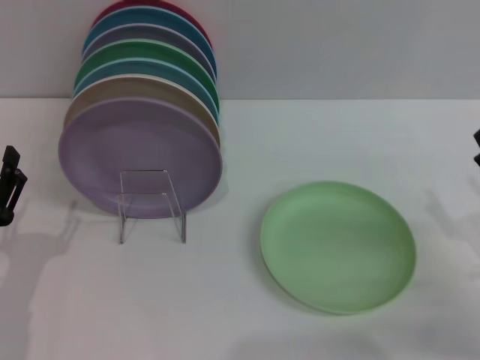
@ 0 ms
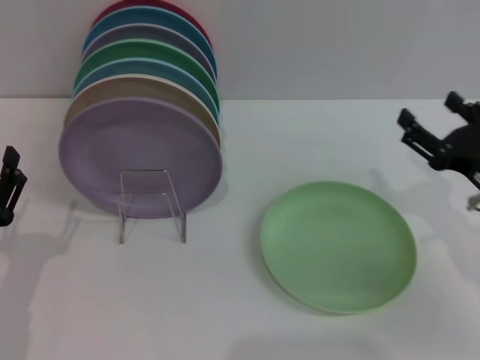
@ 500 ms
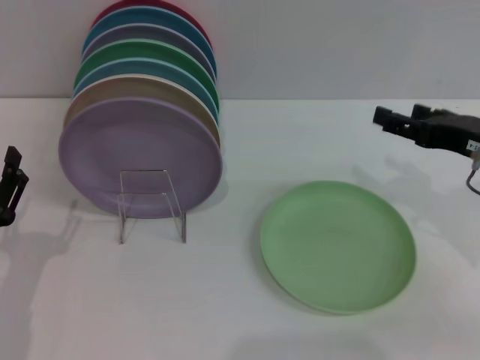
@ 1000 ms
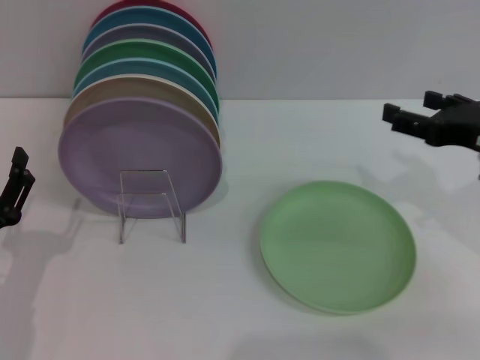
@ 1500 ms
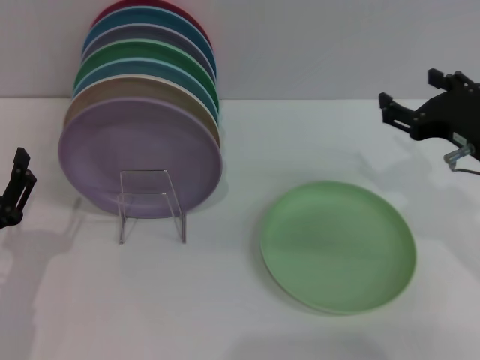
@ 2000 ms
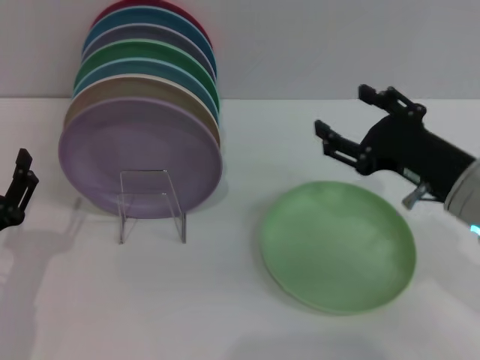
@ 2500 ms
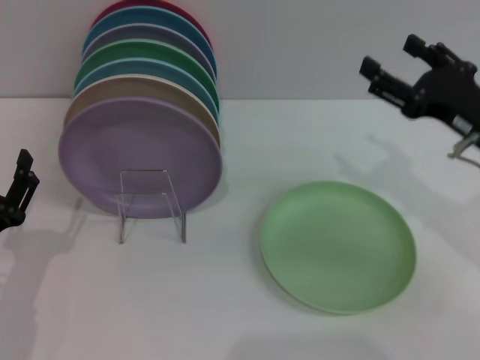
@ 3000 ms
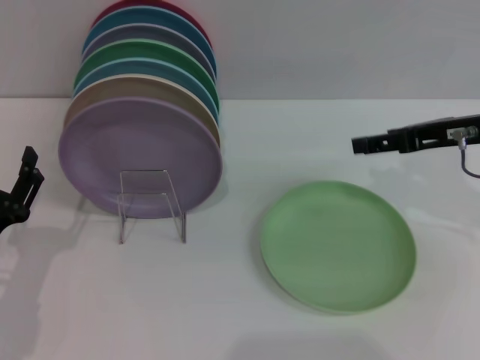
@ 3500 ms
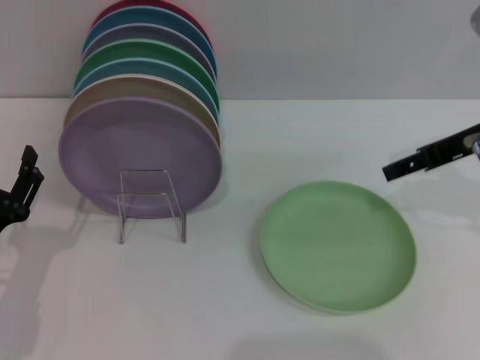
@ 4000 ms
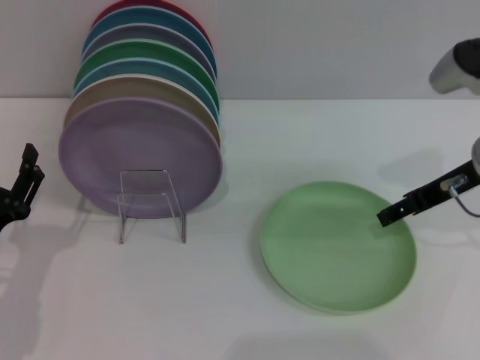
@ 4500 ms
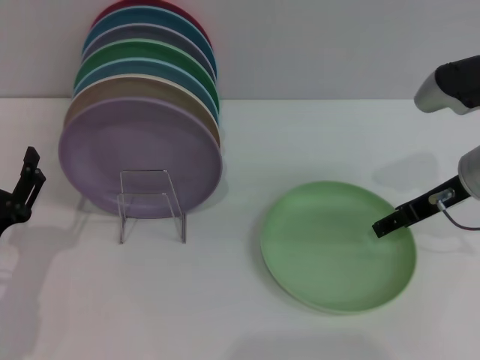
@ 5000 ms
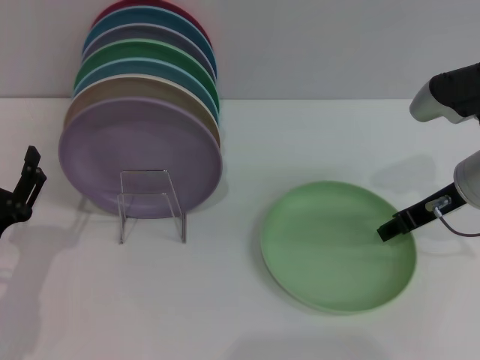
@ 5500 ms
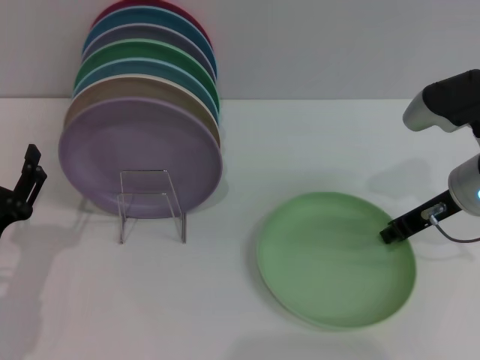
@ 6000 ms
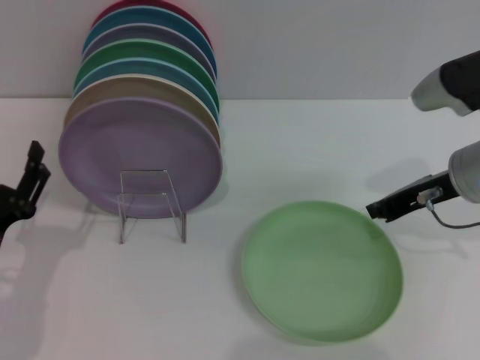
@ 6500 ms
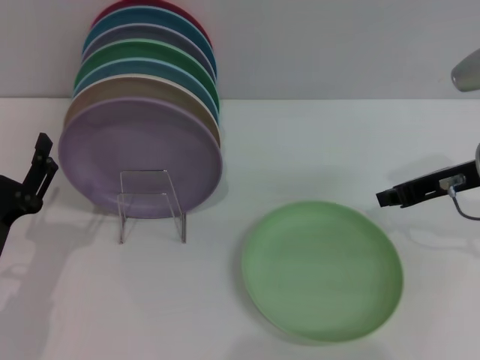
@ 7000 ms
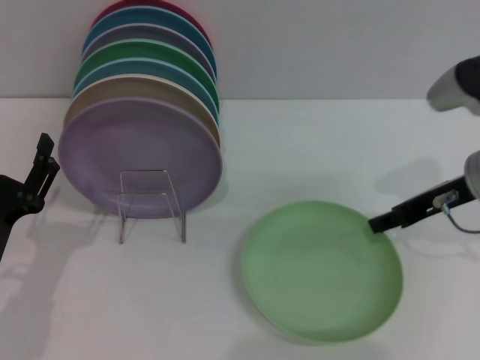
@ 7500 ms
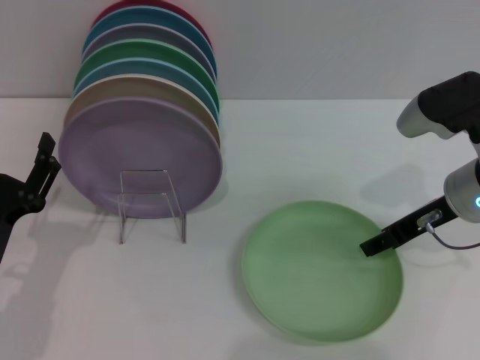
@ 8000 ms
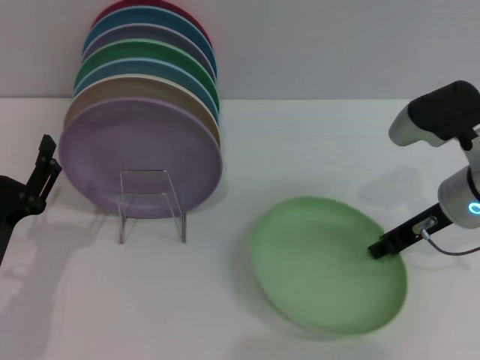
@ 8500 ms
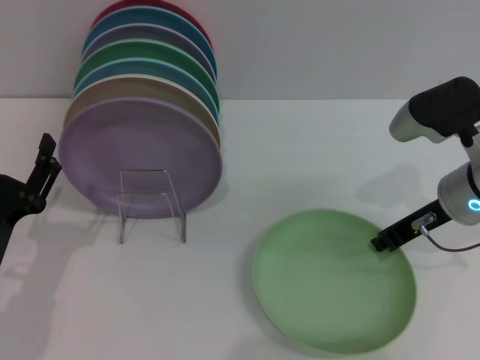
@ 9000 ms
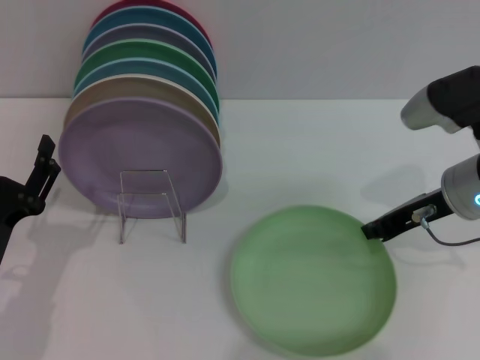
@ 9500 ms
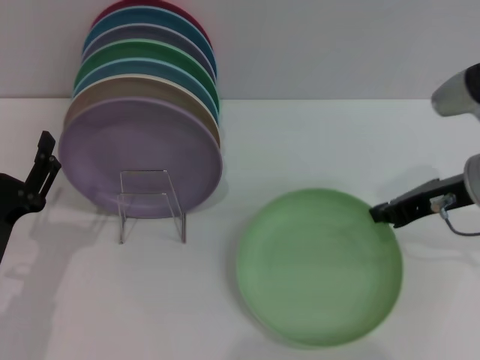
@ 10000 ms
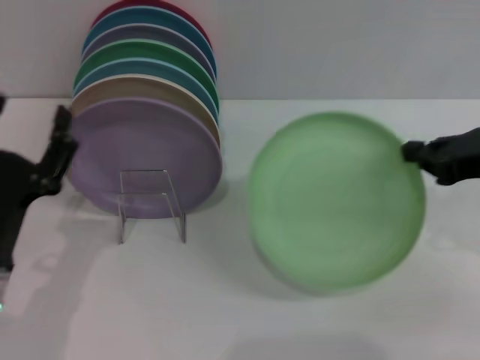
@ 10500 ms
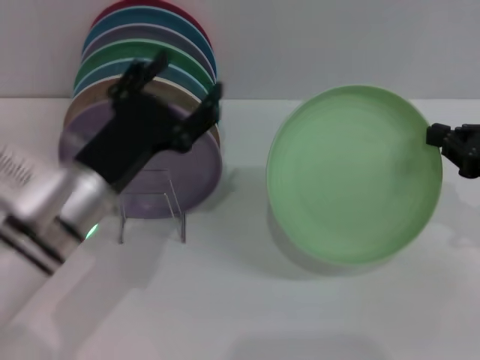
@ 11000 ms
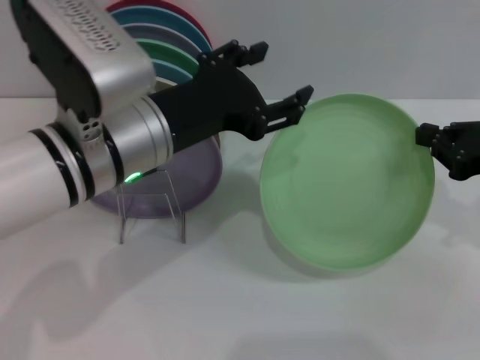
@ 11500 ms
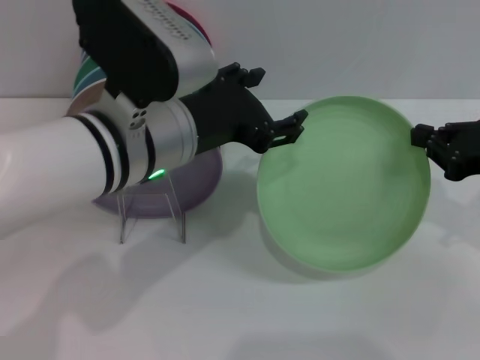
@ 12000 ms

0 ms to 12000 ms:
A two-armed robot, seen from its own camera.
Task of the whole recording: Grip the plate with one hand, pass it to the other, then set it on the shelf.
Step, 0 ms to 11000 ms: Pick up the plate with the right gripper.
0 ms to 2000 ms: The right gripper travels upward, forward and to the left by approximately 15 cm.
2000 ms to 4000 ms: The right gripper travels upward by roughly 5 cm.
4000 ms to 6000 ms: The right gripper travels downward by roughly 10 cm, and closes.
6000 ms to 8000 ms: The right gripper opens up.
8000 ms to 10000 ms: The right gripper closes its fingers.
10000 ms to 12000 ms: The right gripper shifts some 5 cm to the right. The left gripper is displaced upward, to the right and forward by approximately 25 cm.

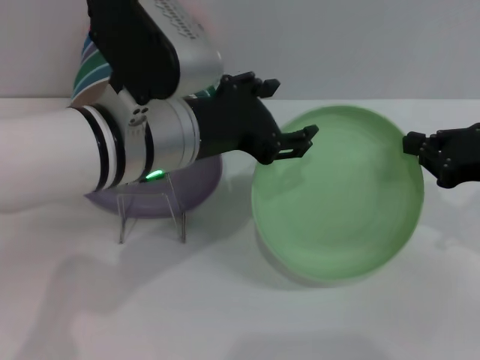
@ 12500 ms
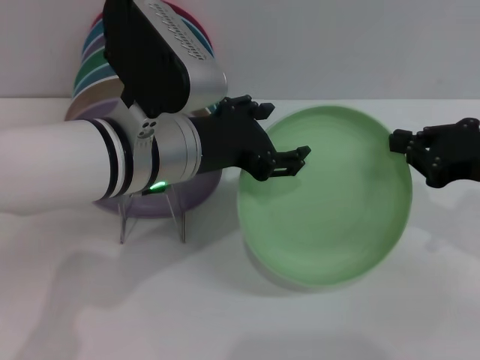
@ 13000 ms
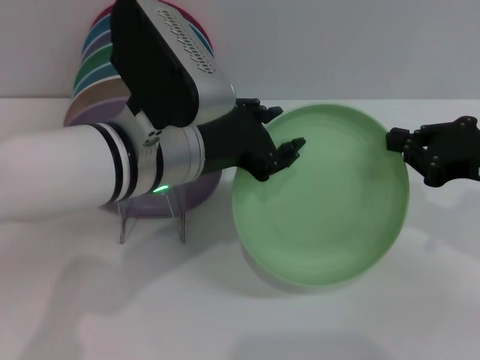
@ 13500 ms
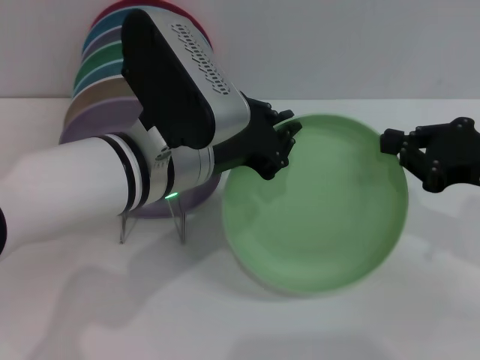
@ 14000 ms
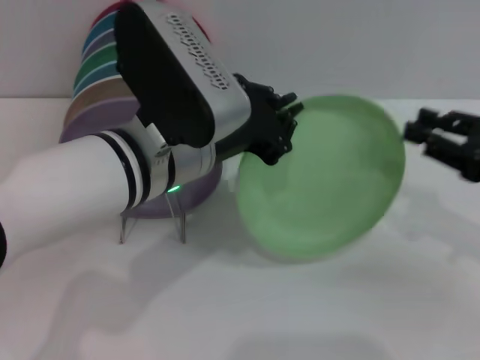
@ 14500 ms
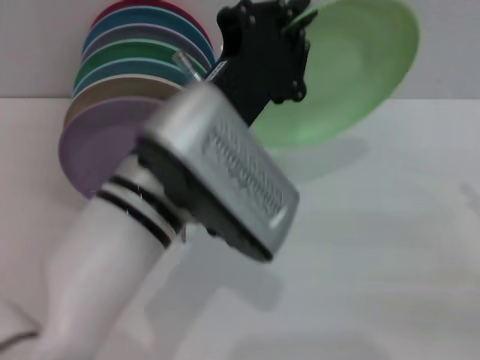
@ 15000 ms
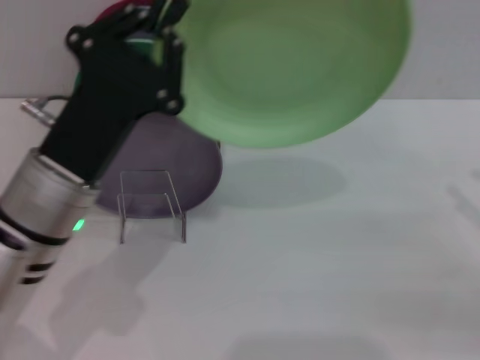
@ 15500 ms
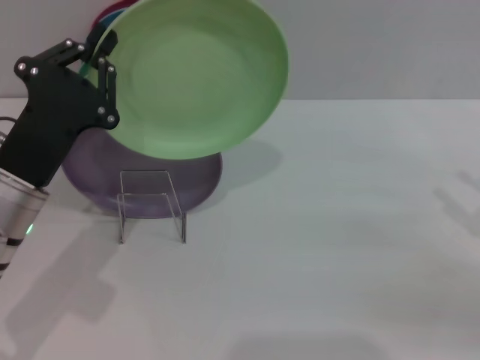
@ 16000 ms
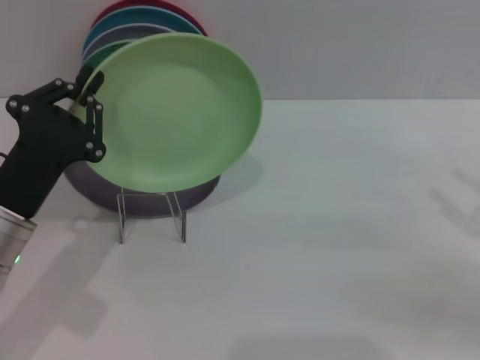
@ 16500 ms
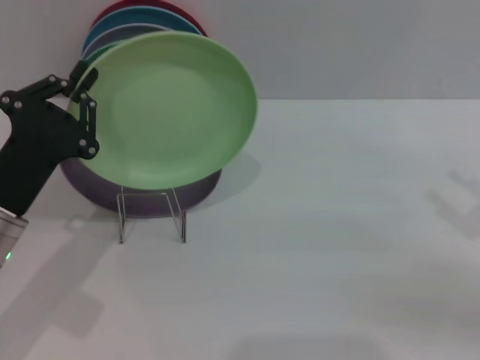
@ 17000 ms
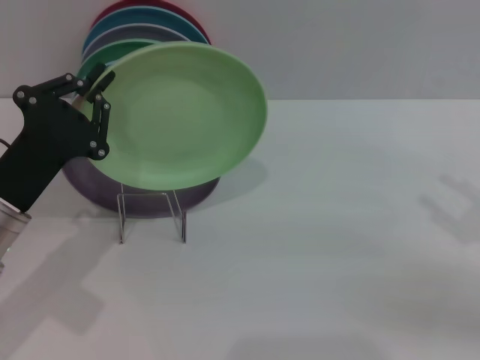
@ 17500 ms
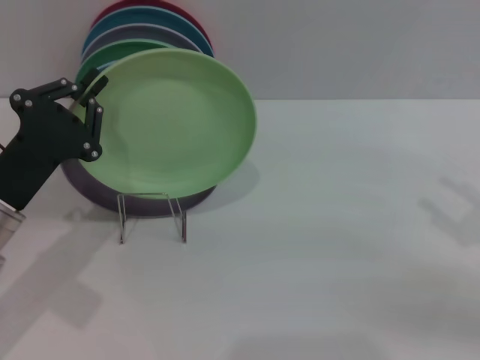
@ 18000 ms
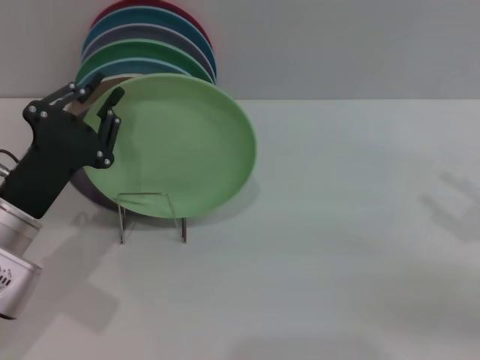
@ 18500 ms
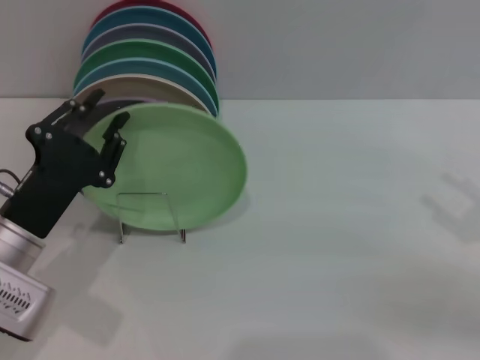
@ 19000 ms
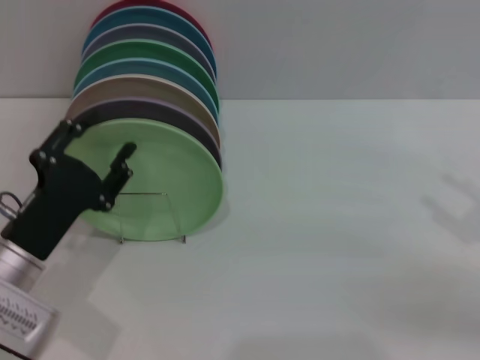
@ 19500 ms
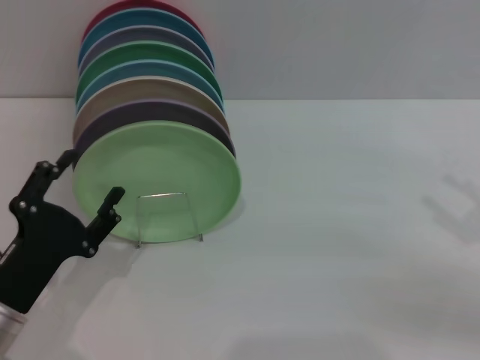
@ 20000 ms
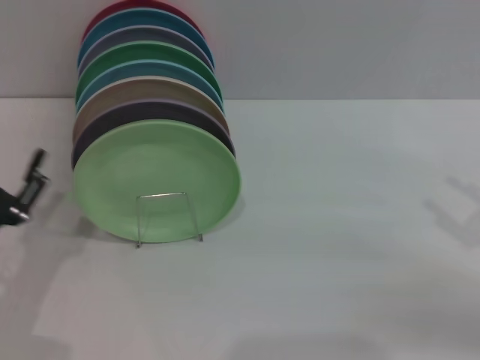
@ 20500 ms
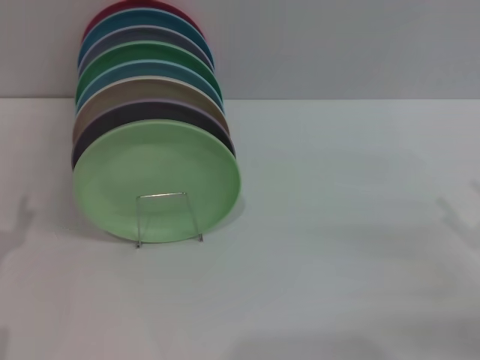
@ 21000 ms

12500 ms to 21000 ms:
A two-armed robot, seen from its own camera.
Task of the whole recording: Grip the plate with one hand, pass it to the other, then set it on the shelf.
Step, 12500 ms to 15500 ms: Pass the plate from the right gripper to the left gripper.
Step, 16000 ms to 19500 ms: Place the plate on the shelf with the left gripper.
12500 ms to 14500 ms: The left gripper closes.
14500 ms to 16500 ms: The left gripper goes about 20 cm to the left and downward. Meanwhile the right gripper travels to the right by roughly 5 cm, and opens.
16500 ms to 19000 ms: The grippers move only a little.
19000 ms to 21000 ms: The right gripper is displaced downward by approximately 5 cm. Meanwhile the left gripper goes about 10 cm to the left and backward, and opens.

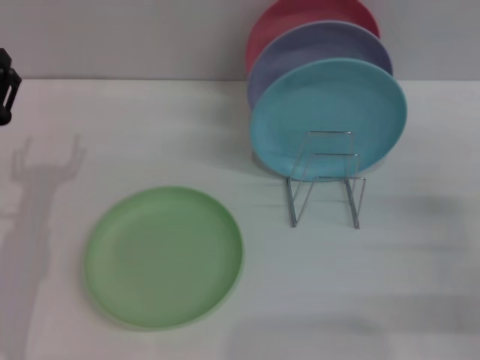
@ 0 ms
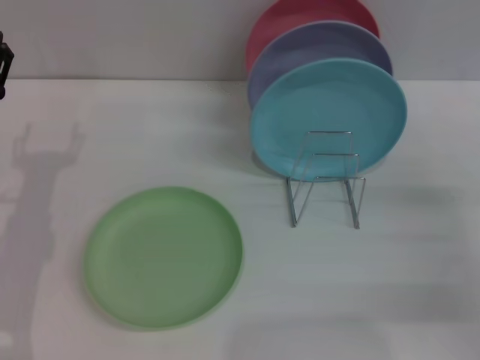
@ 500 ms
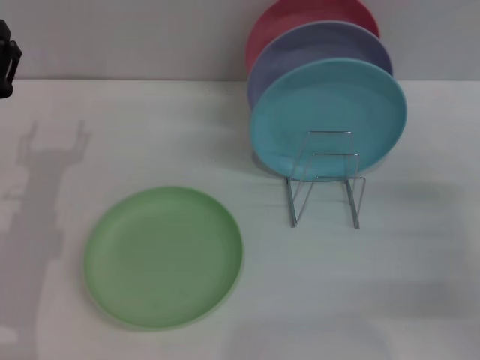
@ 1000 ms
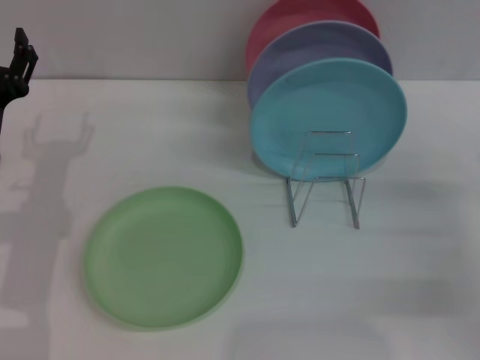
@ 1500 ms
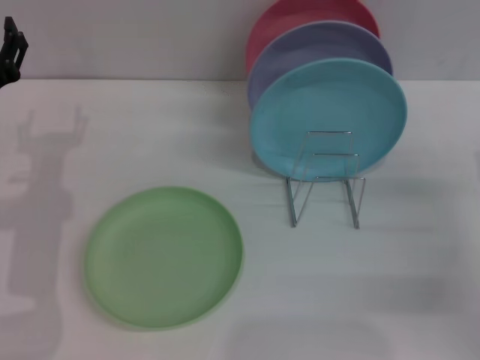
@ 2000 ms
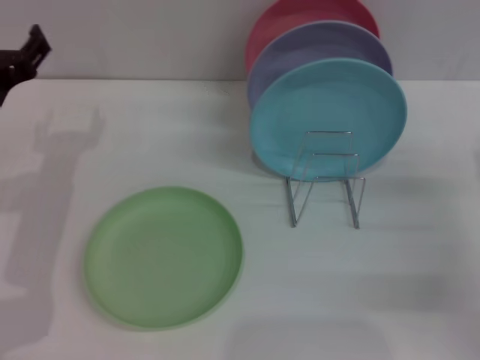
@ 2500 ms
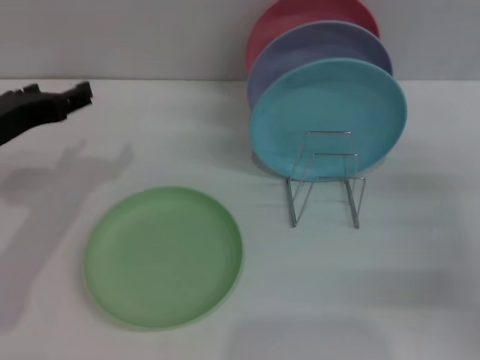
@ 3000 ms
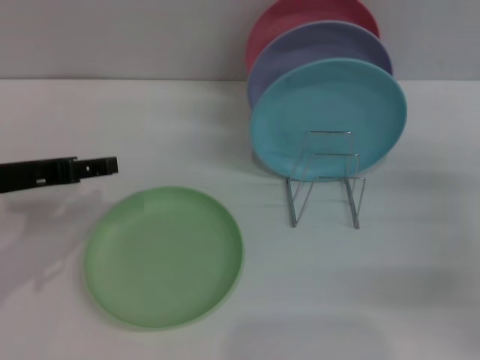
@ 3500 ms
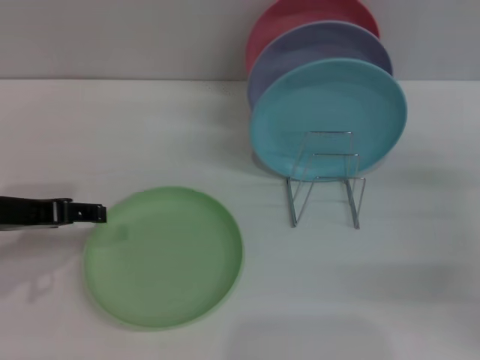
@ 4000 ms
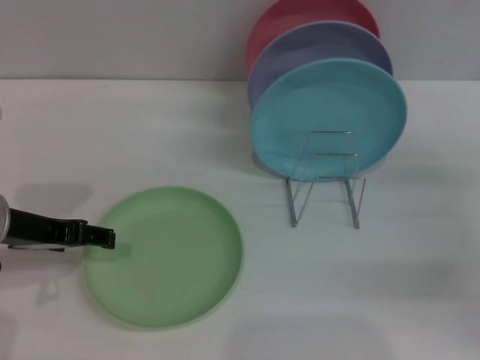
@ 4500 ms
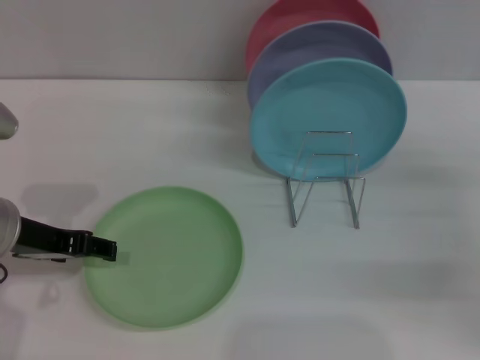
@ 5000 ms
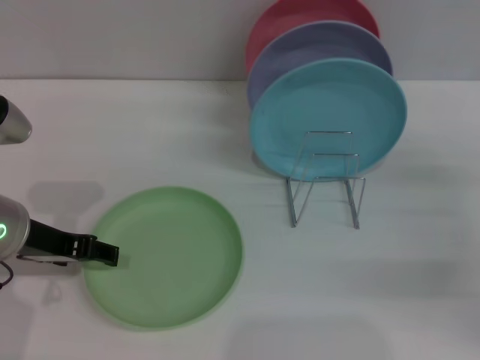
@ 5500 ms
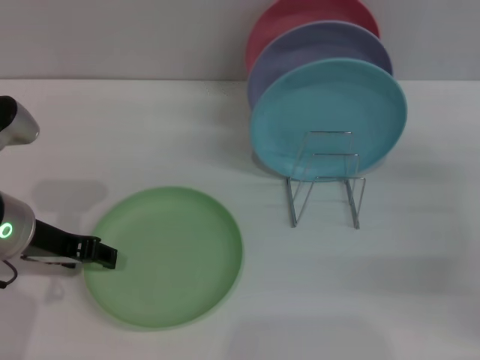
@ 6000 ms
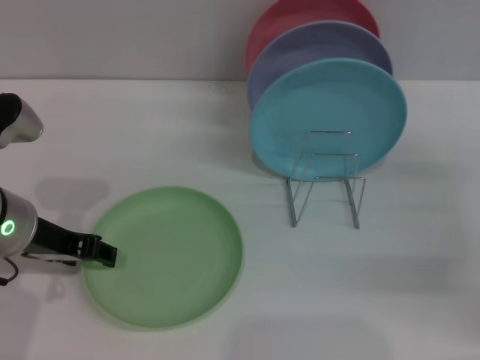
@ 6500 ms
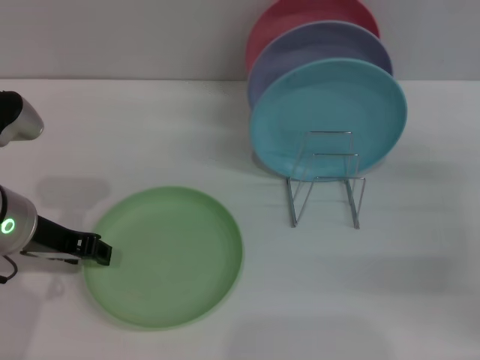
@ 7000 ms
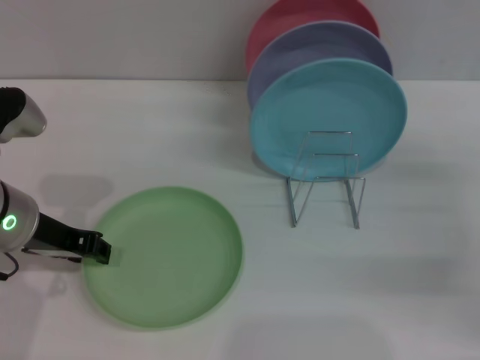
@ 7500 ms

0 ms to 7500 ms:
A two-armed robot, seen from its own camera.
Task of the whole recording: Grip the plate with one hand, pass it to the other, then set it on the shelf.
0 ms to 2000 ms: The left gripper changes place by some 5 cm.
2000 ms to 4000 ms: The left gripper is displaced upward by about 5 cm.
4000 ms to 5500 ms: The grippers stay close to where they were, moving slightly.
5500 ms to 7500 ms: The left gripper closes its fingers.
